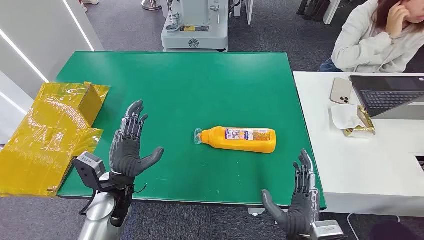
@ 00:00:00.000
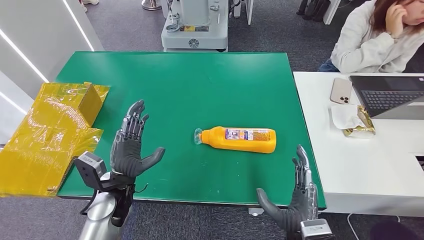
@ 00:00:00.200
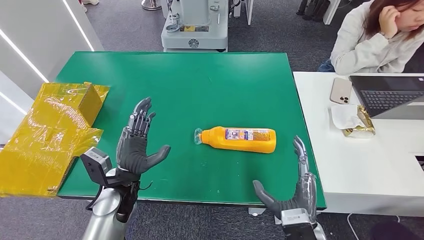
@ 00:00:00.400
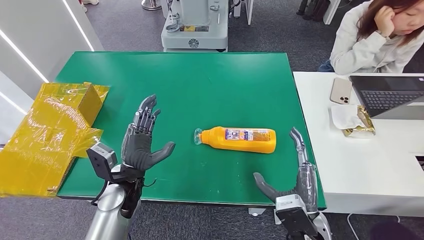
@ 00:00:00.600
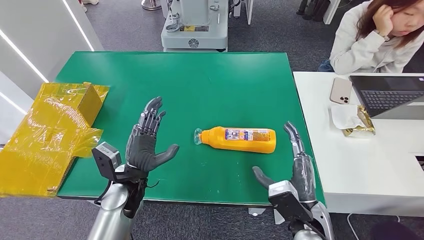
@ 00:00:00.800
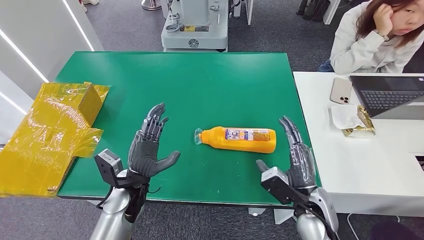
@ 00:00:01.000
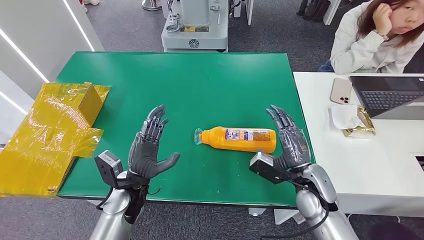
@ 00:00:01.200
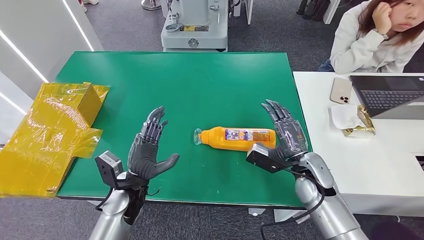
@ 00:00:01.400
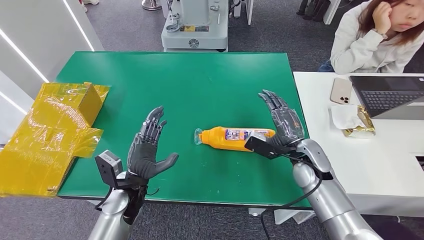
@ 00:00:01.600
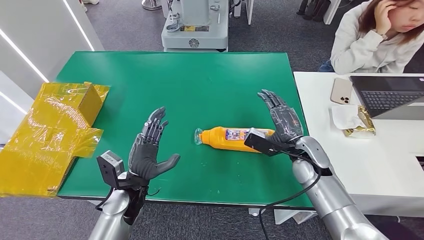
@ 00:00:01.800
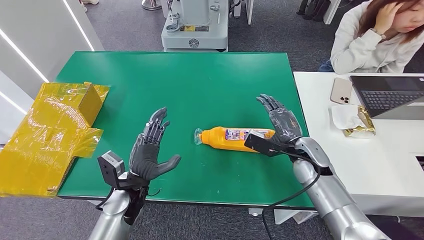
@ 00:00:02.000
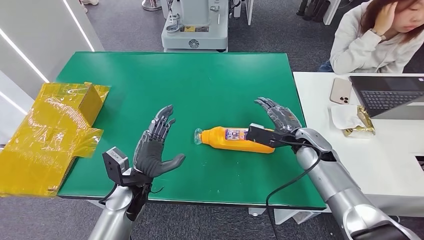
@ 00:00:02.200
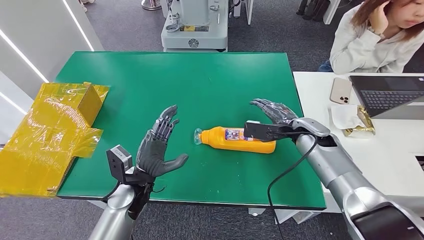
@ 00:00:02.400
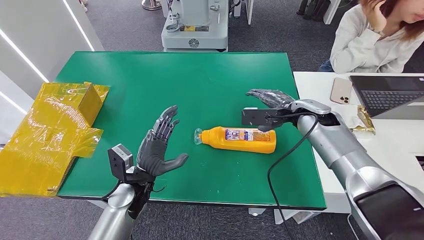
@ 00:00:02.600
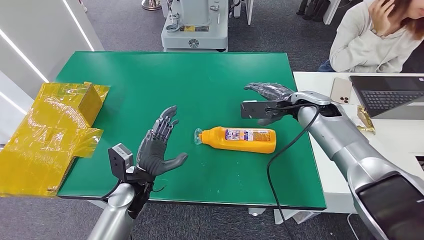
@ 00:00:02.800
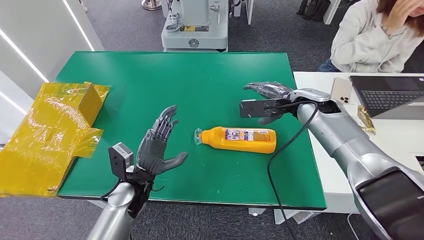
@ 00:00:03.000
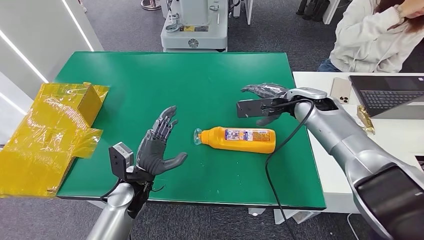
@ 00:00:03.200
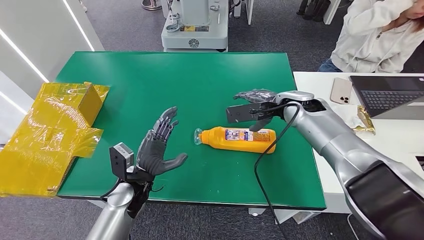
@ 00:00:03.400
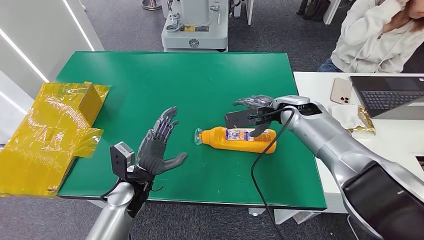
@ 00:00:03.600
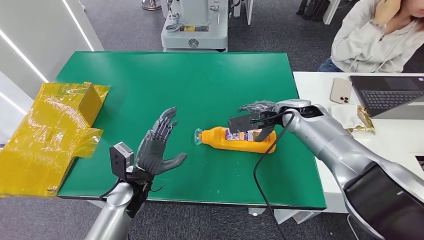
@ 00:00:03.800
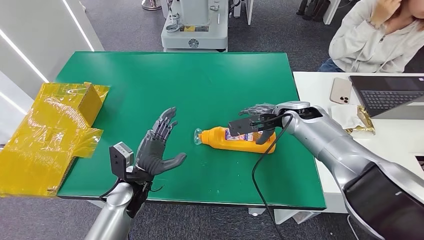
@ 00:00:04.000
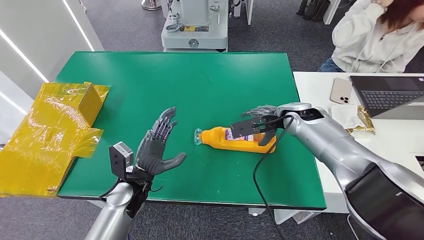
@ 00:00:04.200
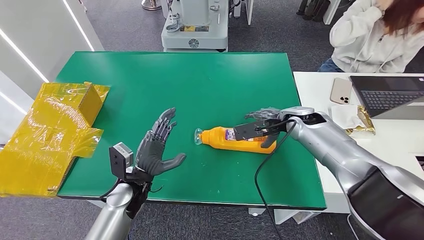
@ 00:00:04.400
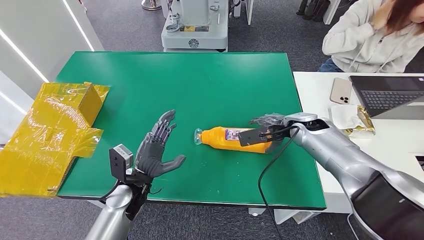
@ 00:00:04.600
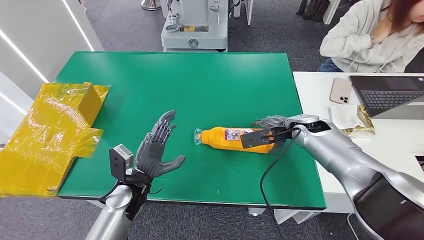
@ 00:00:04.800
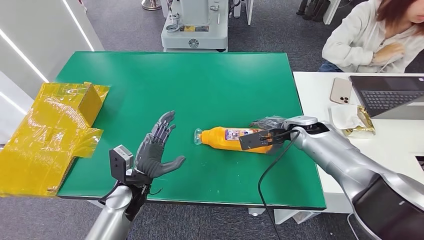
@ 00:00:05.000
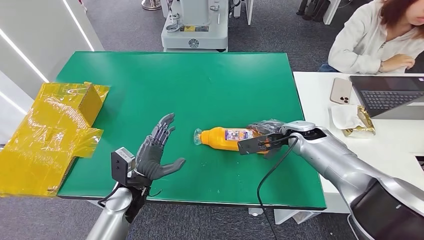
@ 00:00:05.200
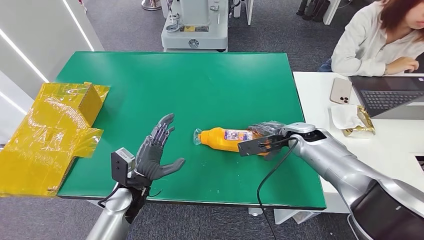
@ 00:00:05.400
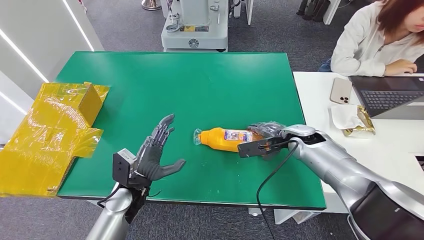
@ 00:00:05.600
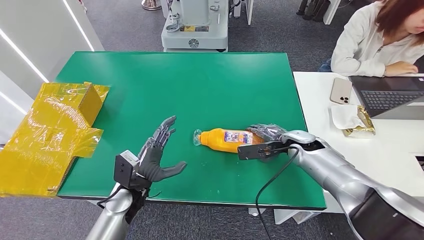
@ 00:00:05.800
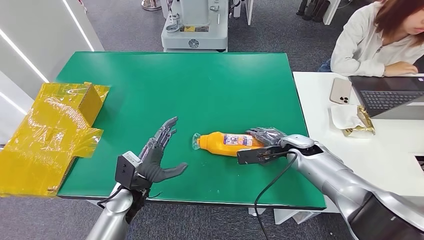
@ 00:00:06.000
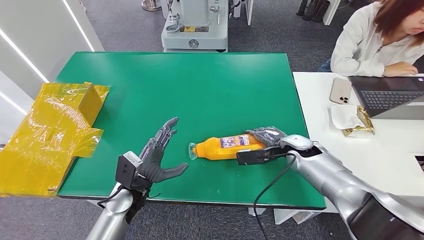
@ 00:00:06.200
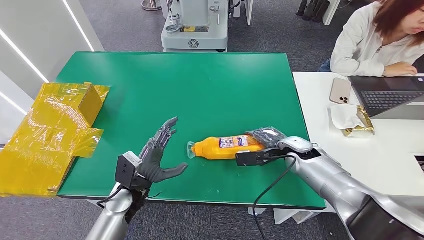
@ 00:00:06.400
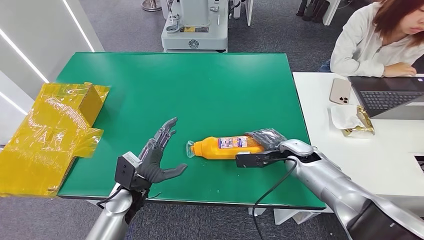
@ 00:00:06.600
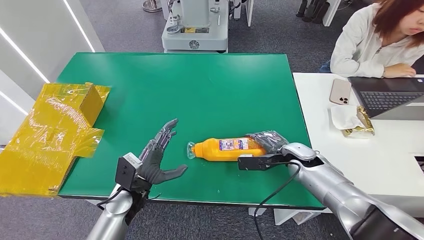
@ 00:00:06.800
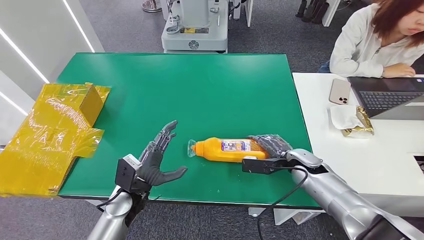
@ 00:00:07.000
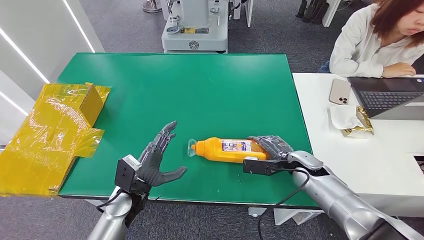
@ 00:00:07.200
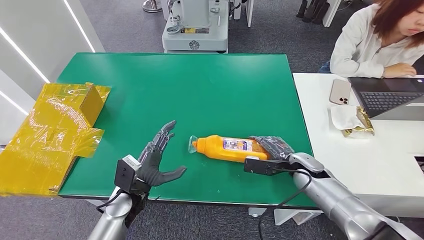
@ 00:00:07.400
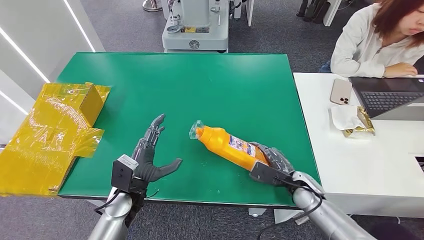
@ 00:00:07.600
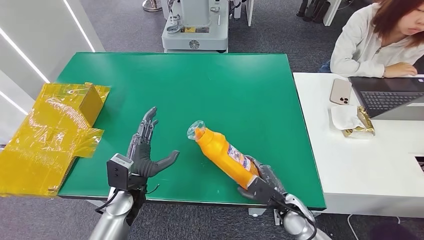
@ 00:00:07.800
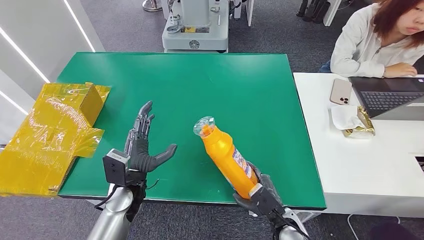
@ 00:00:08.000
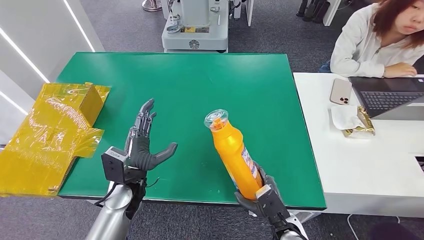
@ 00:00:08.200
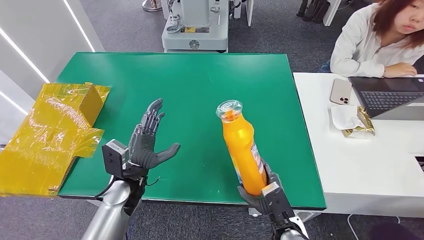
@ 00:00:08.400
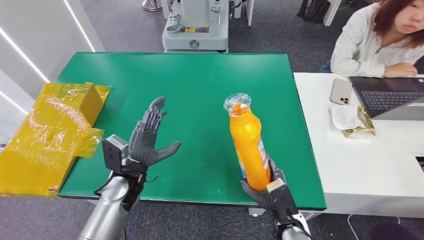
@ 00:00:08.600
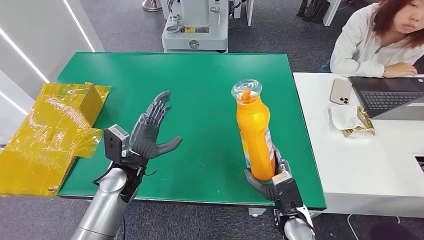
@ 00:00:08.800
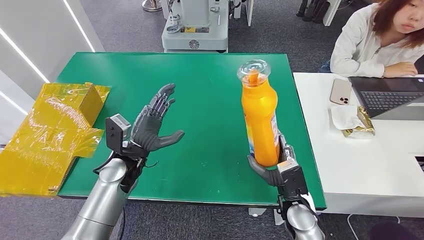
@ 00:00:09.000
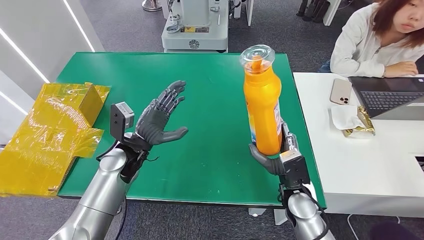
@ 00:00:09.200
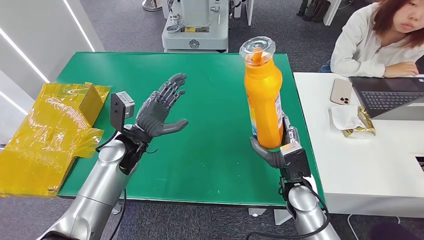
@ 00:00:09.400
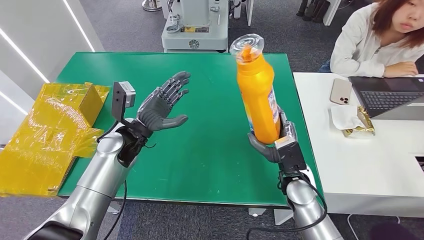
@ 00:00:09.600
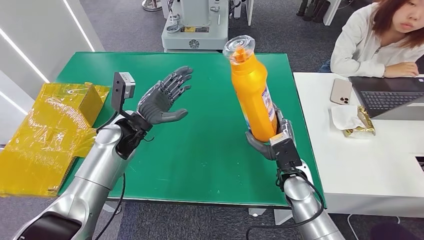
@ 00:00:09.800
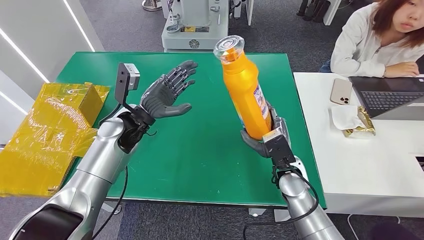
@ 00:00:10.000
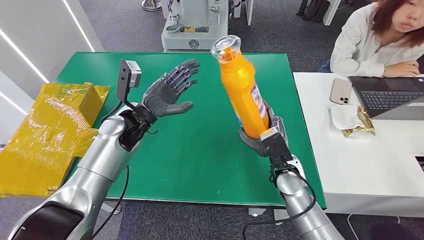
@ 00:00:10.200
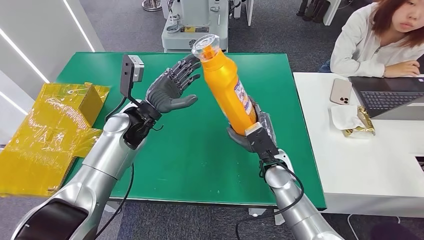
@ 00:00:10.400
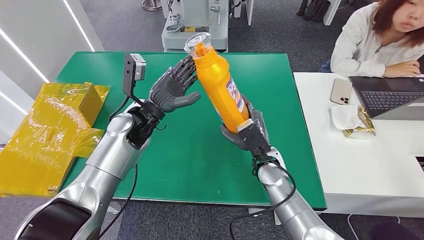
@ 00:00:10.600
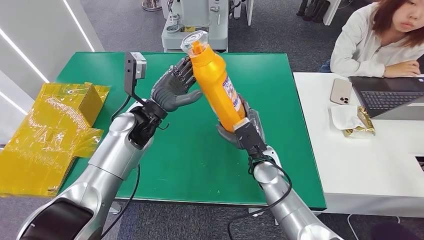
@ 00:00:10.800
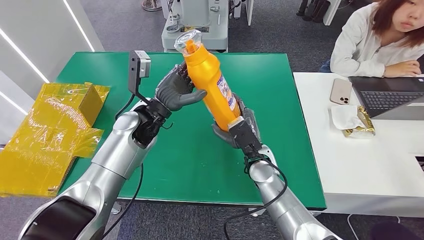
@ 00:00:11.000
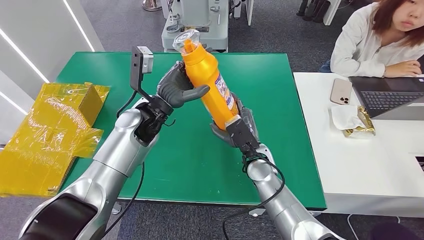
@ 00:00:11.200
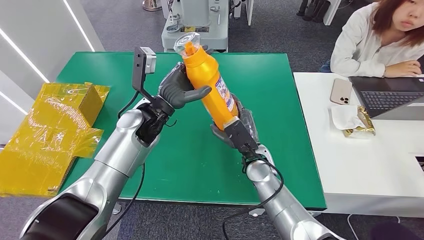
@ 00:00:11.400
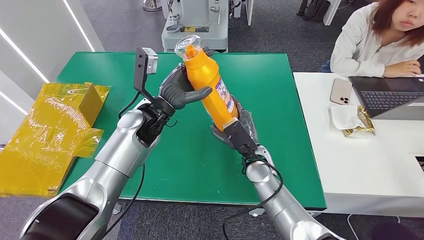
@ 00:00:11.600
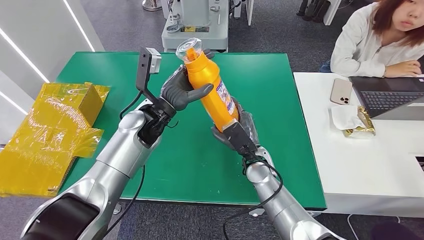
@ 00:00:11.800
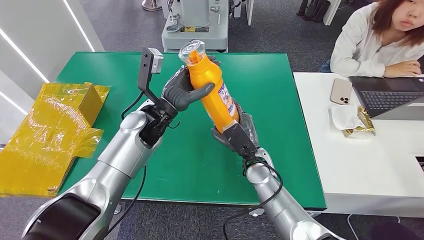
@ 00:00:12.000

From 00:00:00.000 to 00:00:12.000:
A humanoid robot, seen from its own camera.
Step, from 00:00:00.000 to 00:00:07.600: Pick up the bottle from the table.
From 00:00:01.600 to 00:00:03.000: The right hand travels upward and forward by about 15 cm.
From 00:00:03.000 to 00:00:04.400: The right hand moves roughly 5 cm.
From 00:00:04.400 to 00:00:06.000: The right hand heads downward, covering roughly 10 cm.
From 00:00:06.000 to 00:00:07.600: The right hand travels backward and downward by roughly 15 cm.
From 00:00:07.600 to 00:00:09.000: The right hand heads to the left and backward, covering about 10 cm. Meanwhile the left hand heads forward and upward, covering some 10 cm.
From 00:00:09.000 to 00:00:10.400: The right hand goes approximately 10 cm forward; the left hand heads forward and upward, covering about 10 cm.
From 00:00:10.400 to 00:00:12.000: The hands move only a little.

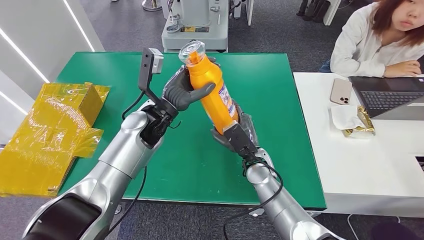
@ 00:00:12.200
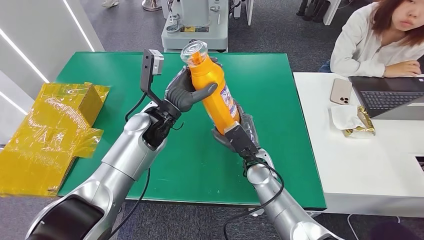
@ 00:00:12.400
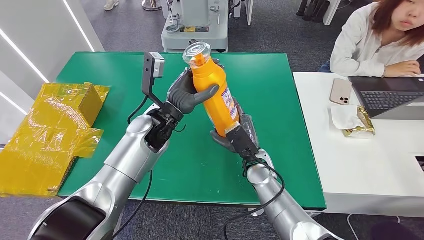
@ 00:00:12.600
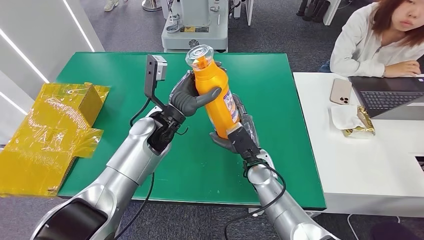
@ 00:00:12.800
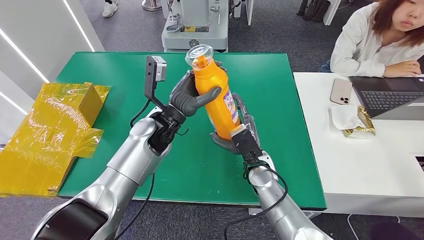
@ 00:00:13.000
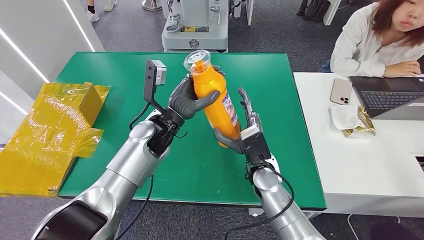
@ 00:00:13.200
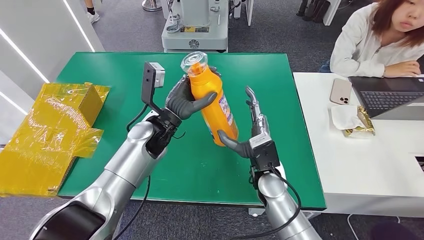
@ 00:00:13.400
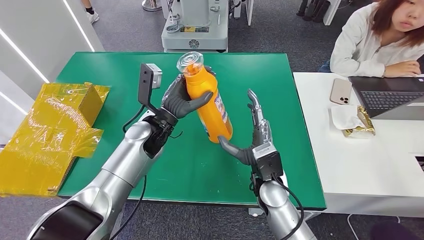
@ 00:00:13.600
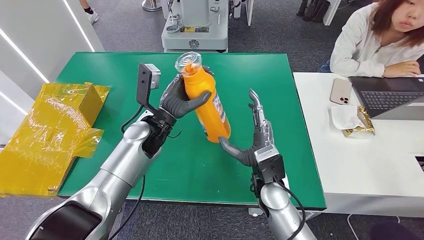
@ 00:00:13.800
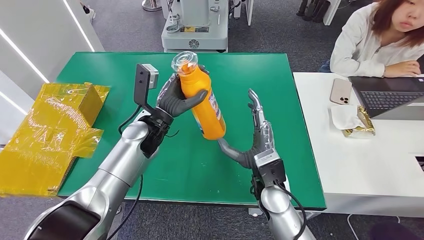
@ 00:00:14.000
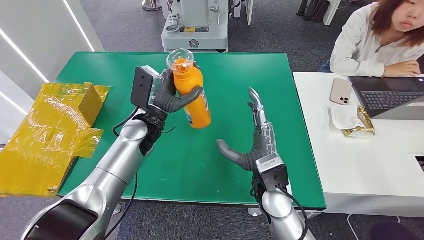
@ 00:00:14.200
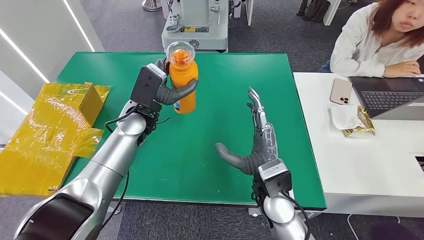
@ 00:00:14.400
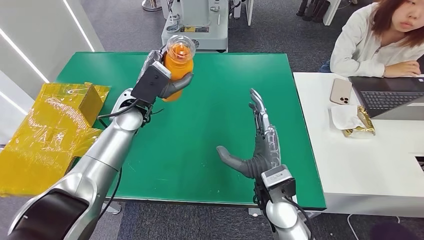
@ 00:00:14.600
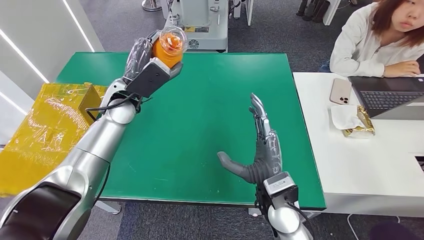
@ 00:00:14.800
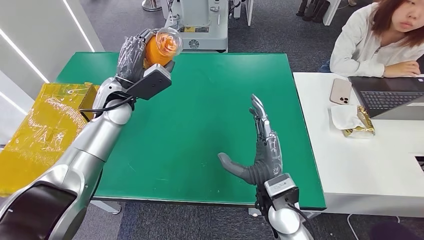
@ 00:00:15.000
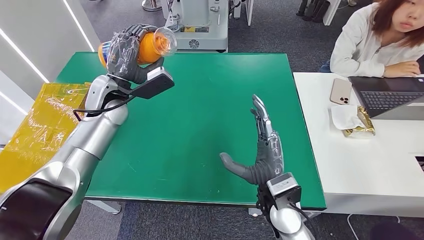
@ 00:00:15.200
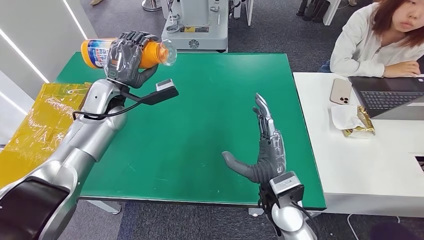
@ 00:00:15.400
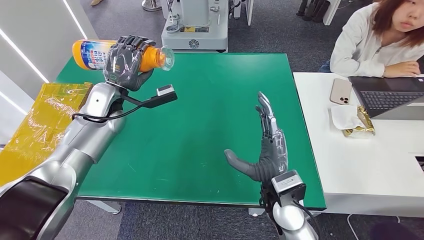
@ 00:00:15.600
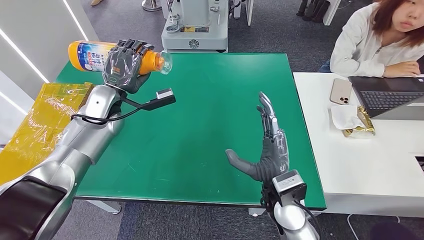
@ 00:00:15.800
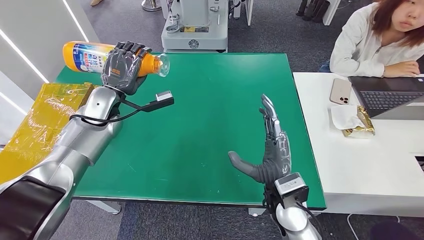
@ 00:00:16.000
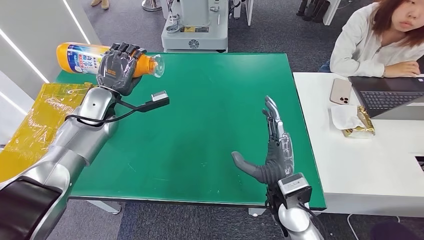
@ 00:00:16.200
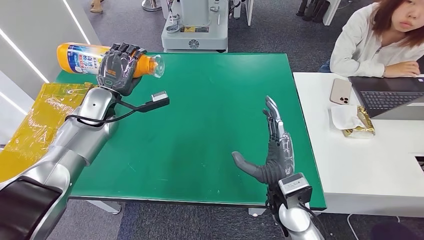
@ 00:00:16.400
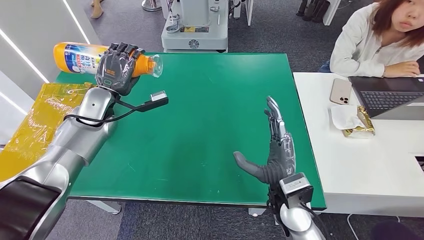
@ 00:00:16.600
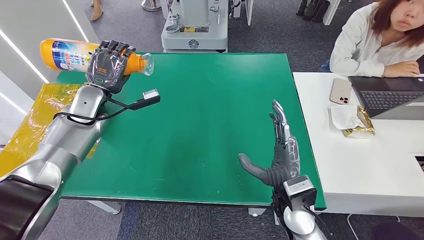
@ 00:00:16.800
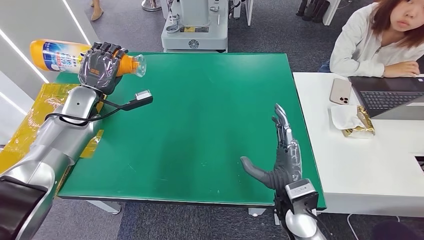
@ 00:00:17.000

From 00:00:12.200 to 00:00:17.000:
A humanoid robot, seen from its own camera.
From 00:00:12.200 to 00:00:13.800: The right hand travels backward by about 5 cm.
From 00:00:15.400 to 00:00:17.000: The left hand goes about 10 cm to the left.
